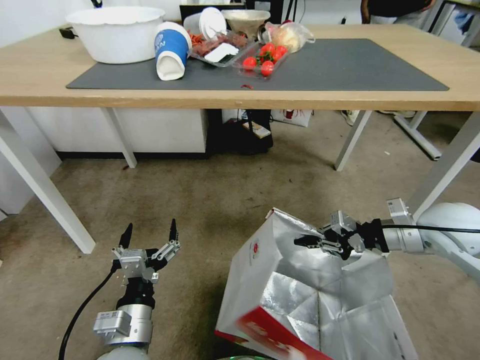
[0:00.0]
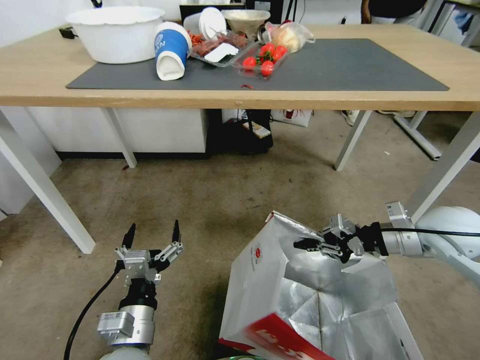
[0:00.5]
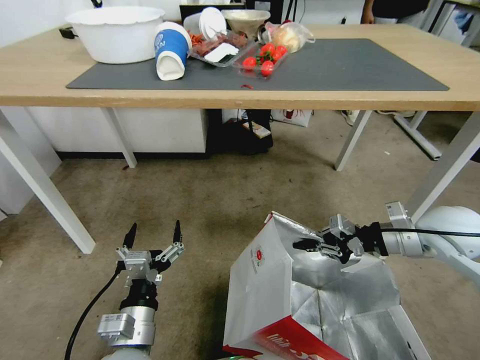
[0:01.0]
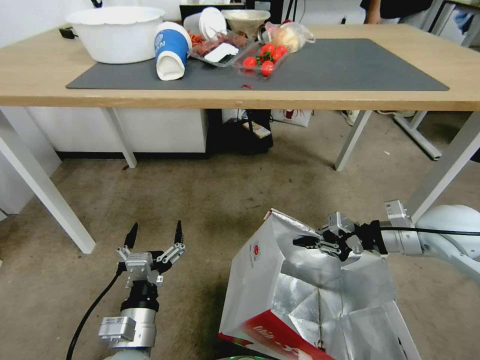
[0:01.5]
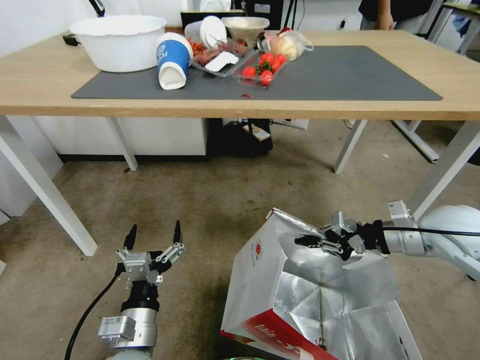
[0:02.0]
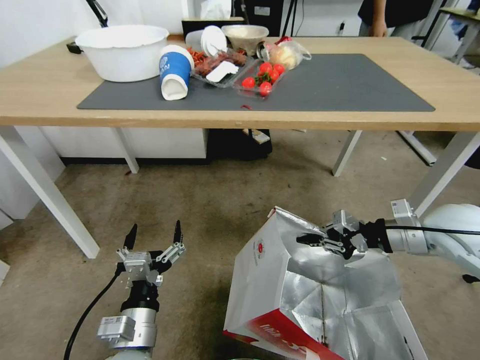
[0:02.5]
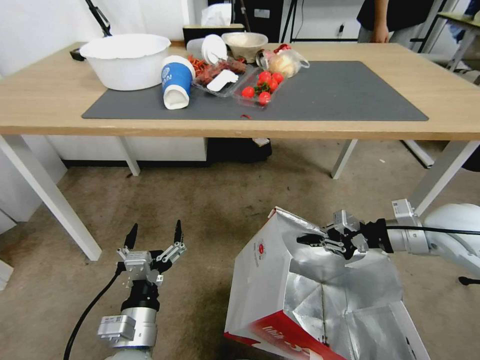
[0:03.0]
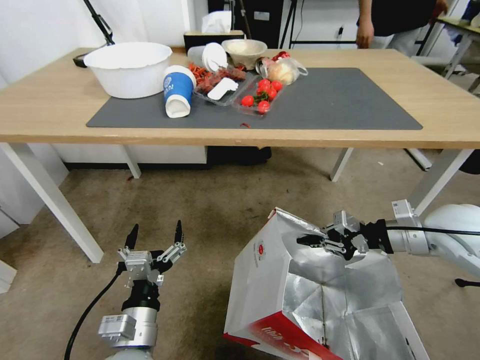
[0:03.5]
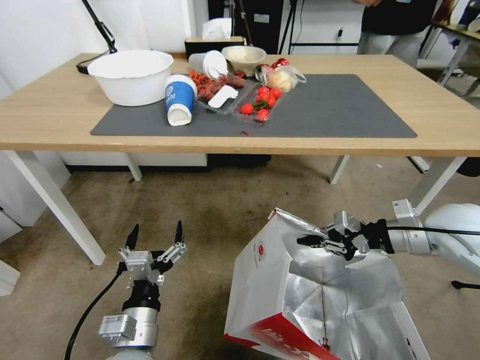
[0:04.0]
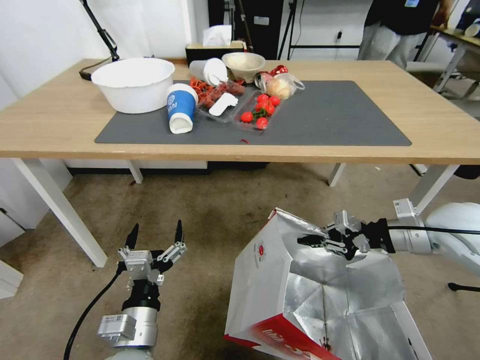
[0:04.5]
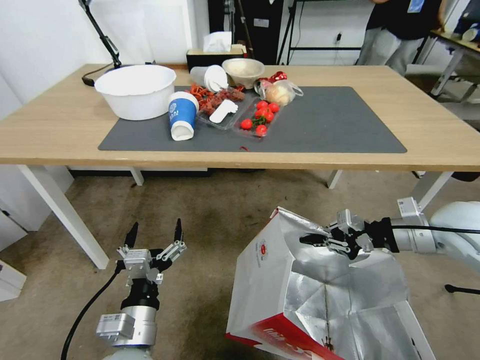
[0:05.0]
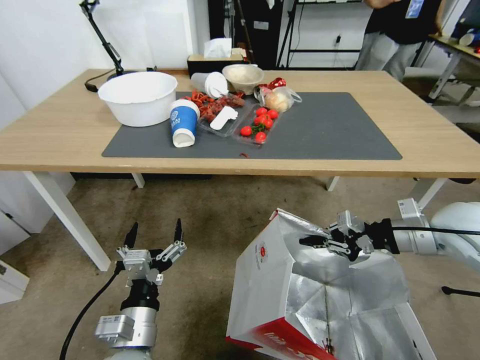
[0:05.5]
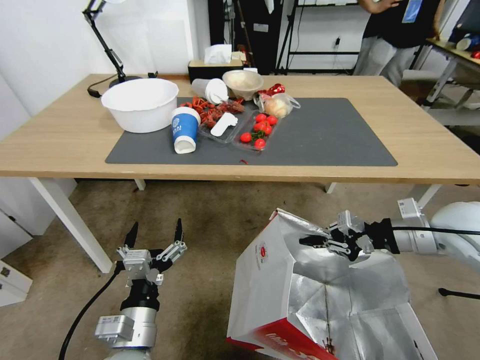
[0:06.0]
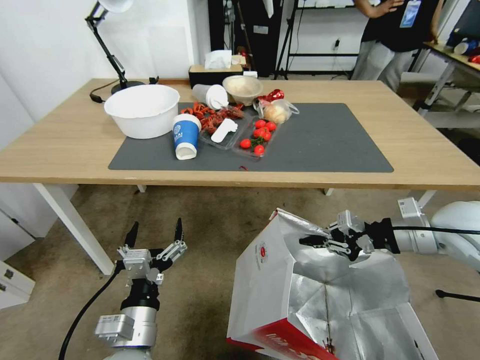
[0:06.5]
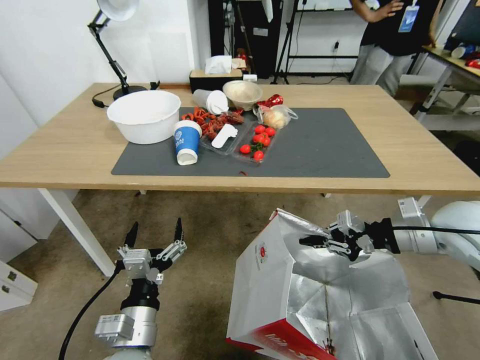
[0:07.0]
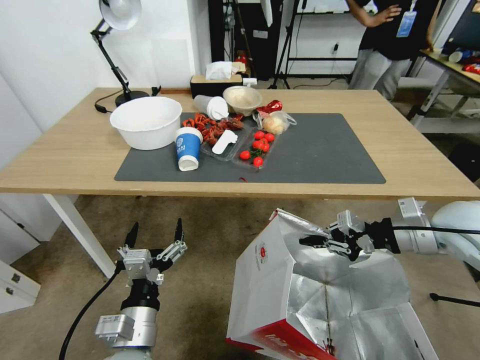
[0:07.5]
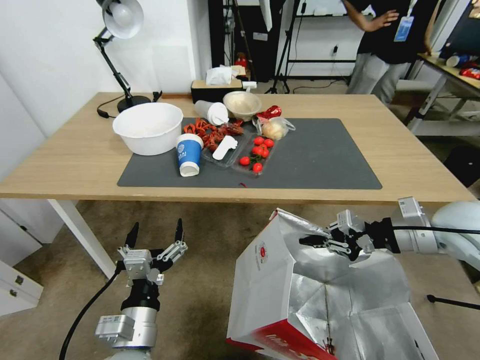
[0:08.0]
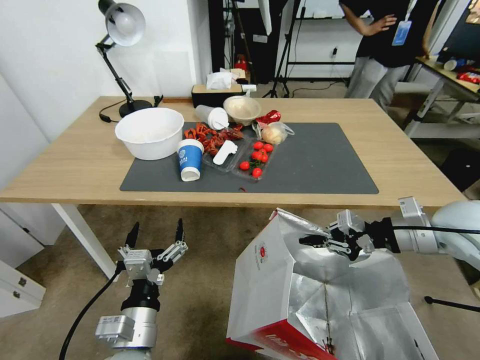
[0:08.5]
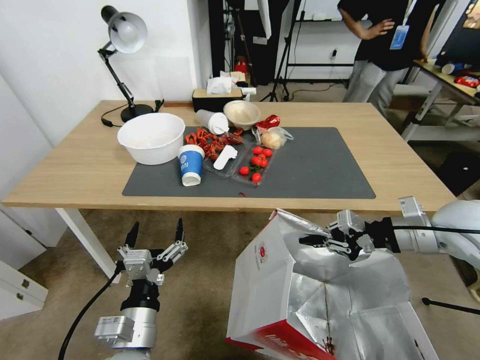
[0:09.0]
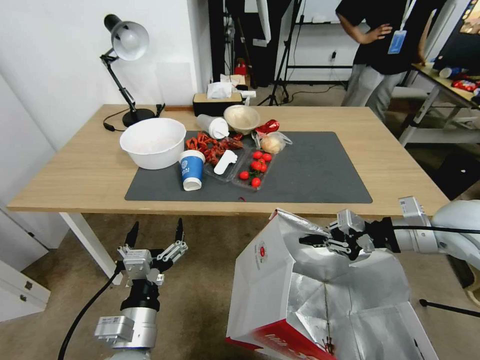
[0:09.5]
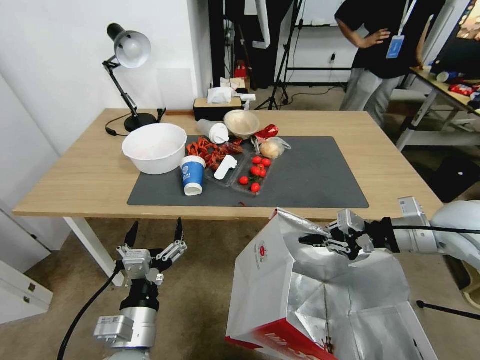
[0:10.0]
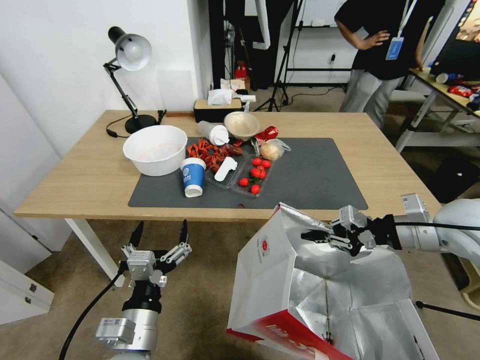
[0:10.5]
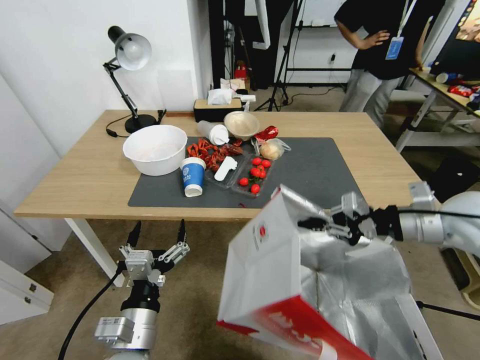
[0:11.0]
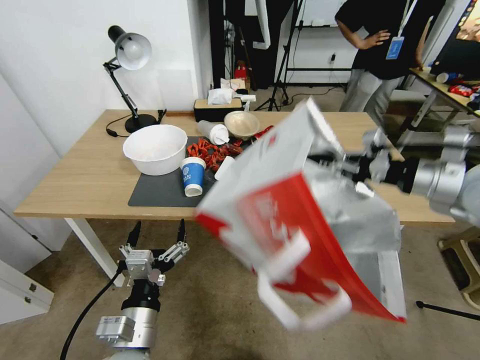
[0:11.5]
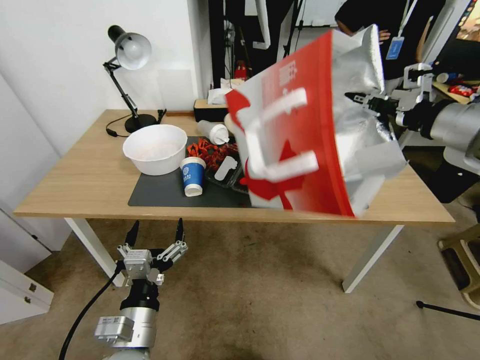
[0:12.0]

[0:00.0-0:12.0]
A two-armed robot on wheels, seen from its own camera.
Task of the whole recording: Pick up the food delivery bag from the floor and place it on the table.
0:10.0 to 0:12.0: The right gripper is displaced upward by roughly 15 cm.

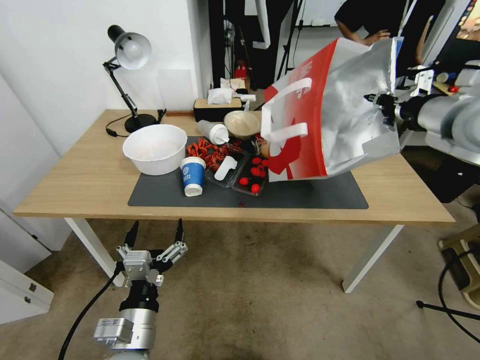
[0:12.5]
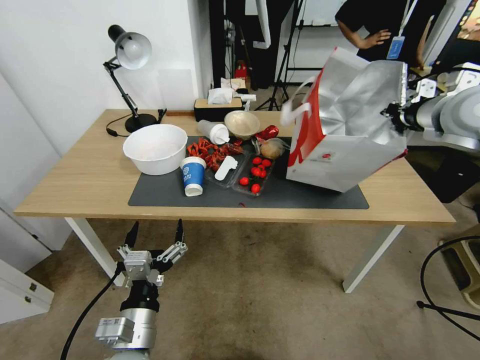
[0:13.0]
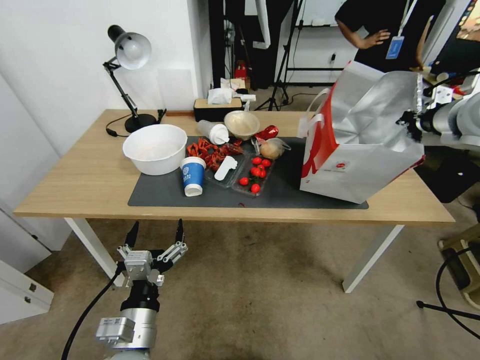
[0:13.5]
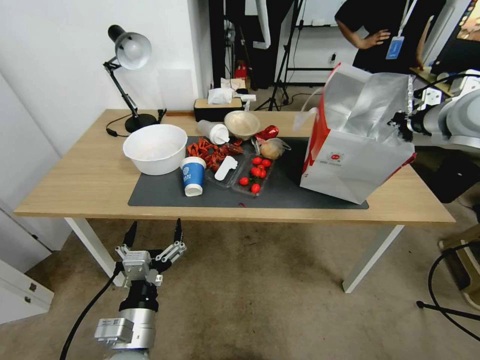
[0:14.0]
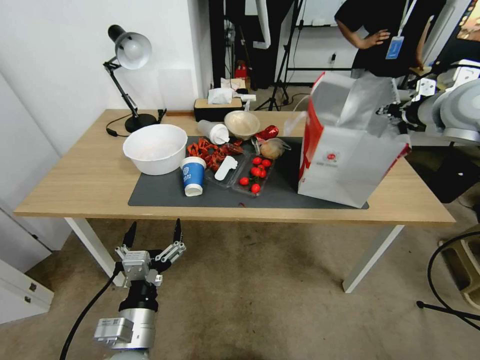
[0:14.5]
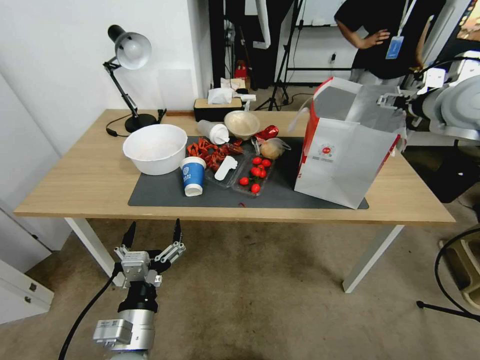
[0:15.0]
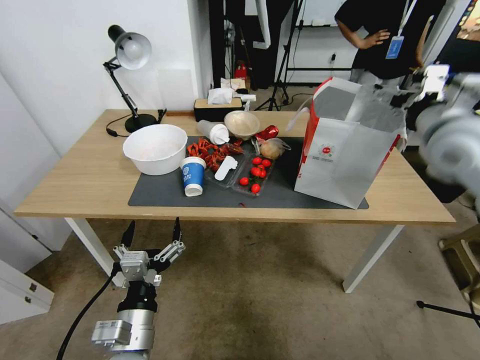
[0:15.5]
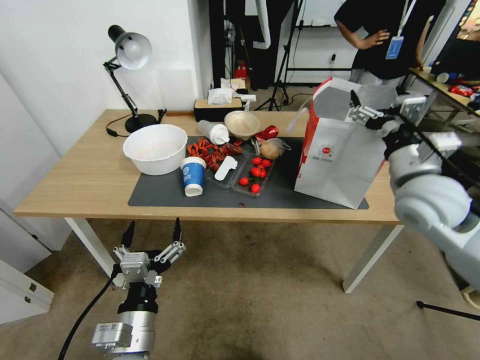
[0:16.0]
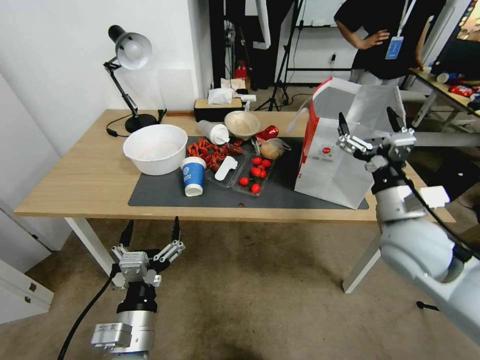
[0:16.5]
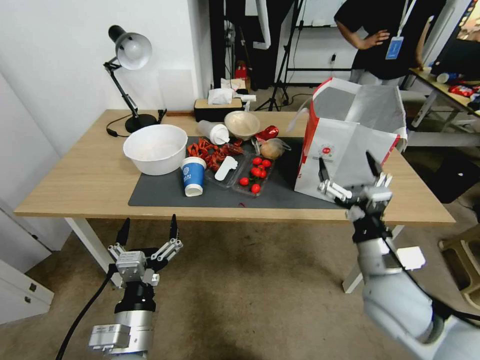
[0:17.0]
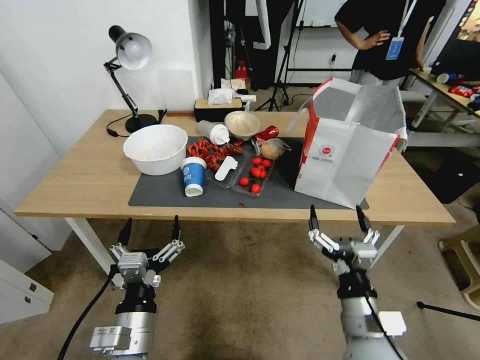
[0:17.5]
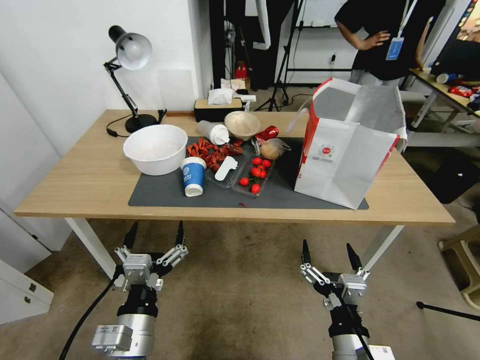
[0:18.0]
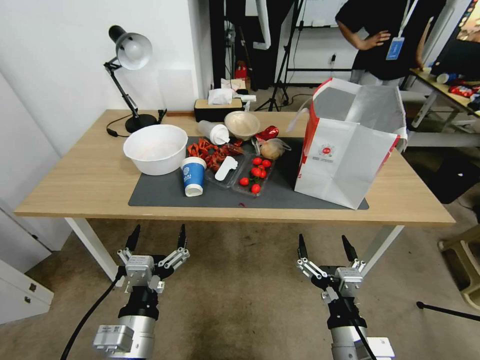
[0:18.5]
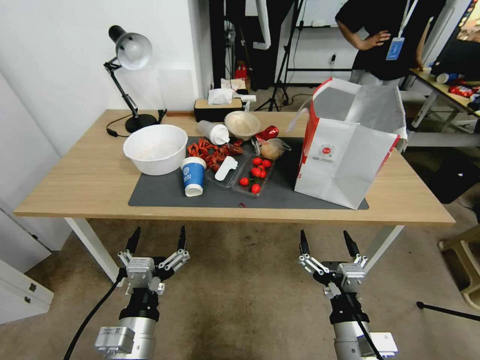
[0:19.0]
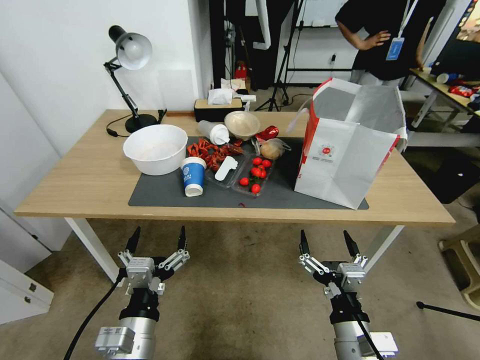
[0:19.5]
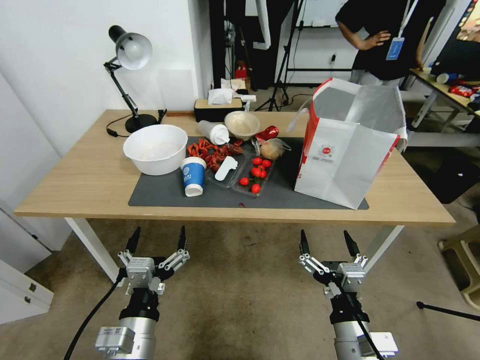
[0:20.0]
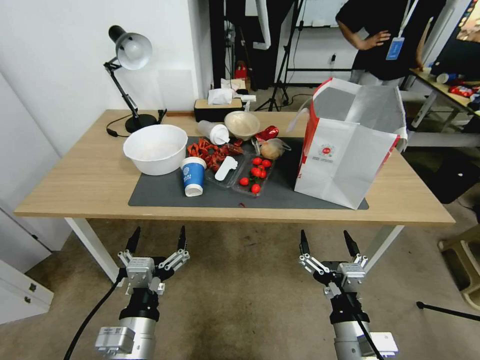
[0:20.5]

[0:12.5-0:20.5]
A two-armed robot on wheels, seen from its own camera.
Task of the whole recording: Pick up the food delivery bag from the floor and place it on the table.
0:12.5 to 0:14.5: The right gripper moves forward, approximately 5 cm, and opens.
0:14.5 to 0:16.5: The right gripper is displaced downward, backward and to the left by approximately 25 cm, and opens its fingers.
0:16.5 to 0:18.5: The right gripper travels backward, downward and to the left by approximately 25 cm.
0:18.5 to 0:20.5: Neither gripper changes place.

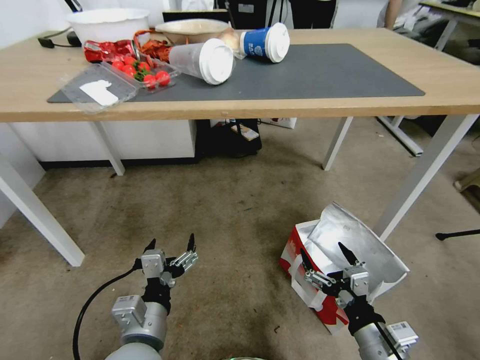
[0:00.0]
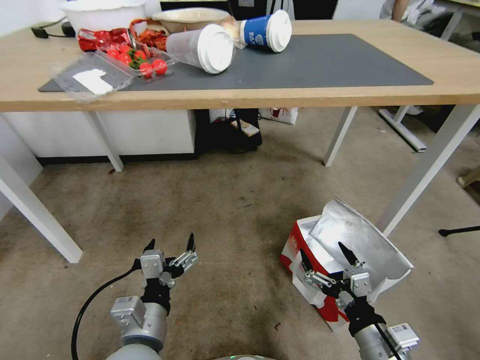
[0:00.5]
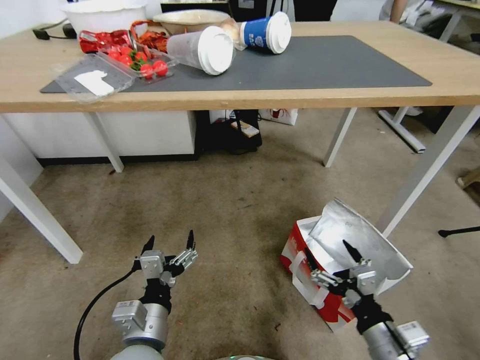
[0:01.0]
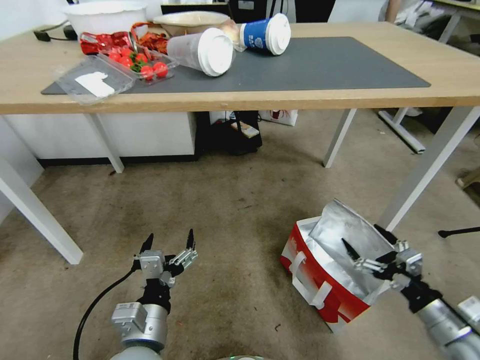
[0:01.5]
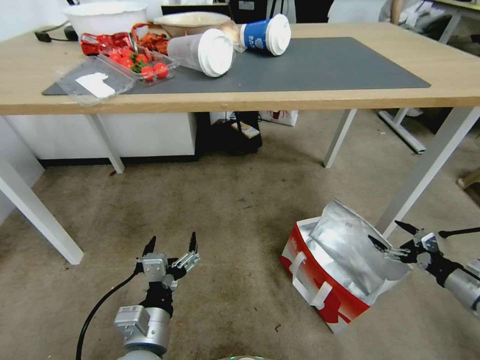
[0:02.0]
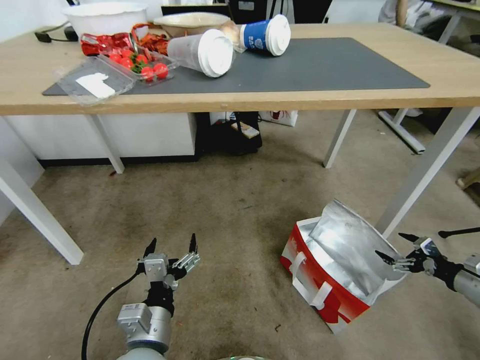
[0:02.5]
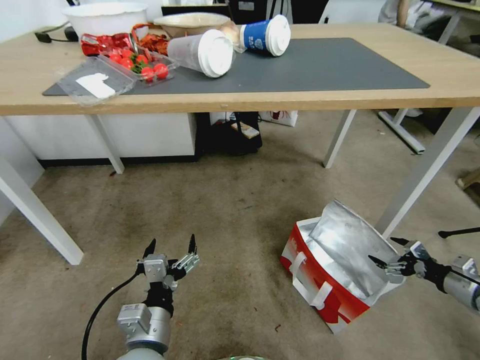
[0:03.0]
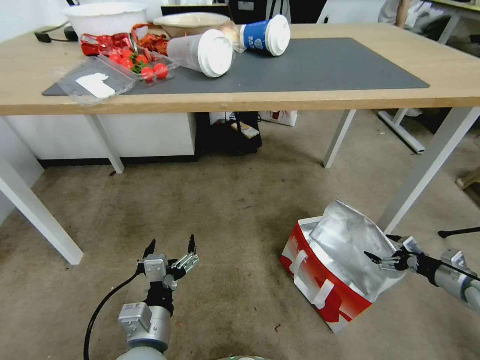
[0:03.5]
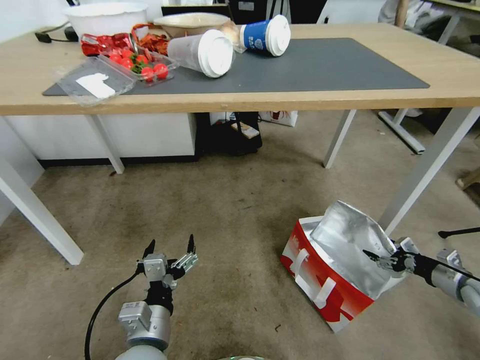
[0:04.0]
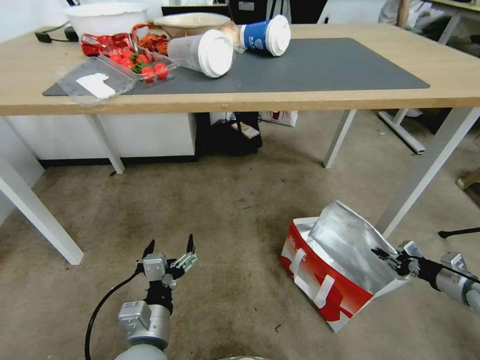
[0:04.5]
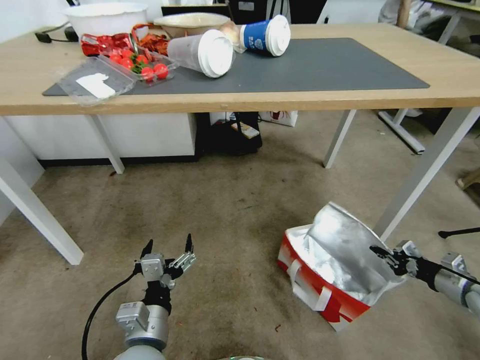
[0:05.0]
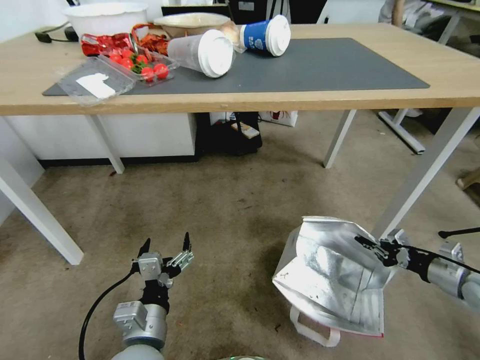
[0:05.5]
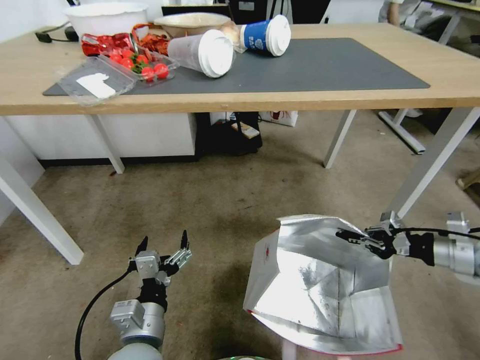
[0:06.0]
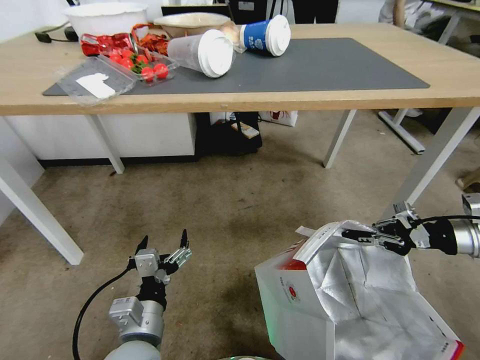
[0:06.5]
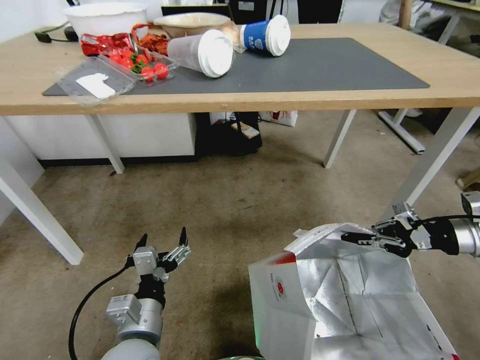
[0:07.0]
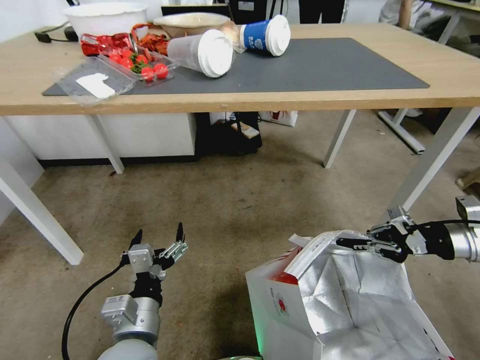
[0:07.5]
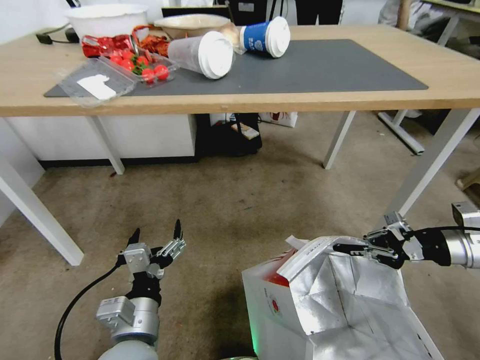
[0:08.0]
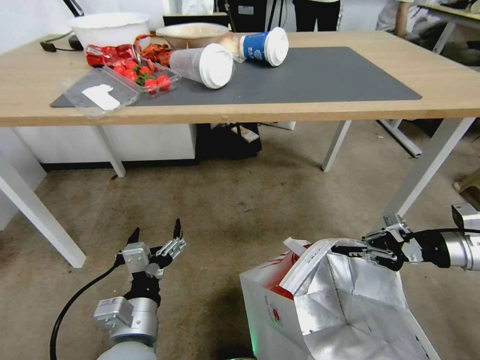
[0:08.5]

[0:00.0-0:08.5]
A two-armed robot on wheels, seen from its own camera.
Task of the whole recording: Pick up the food delivery bag from the floor and place it on the table.
0:00.0 to 0:02.0: The right gripper goes some 30 cm to the right and forward.
0:02.0 to 0:04.0: The right gripper shifts by some 5 cm.
0:04.0 to 0:06.5: The right gripper travels upward by approximately 20 cm, and closes up.
